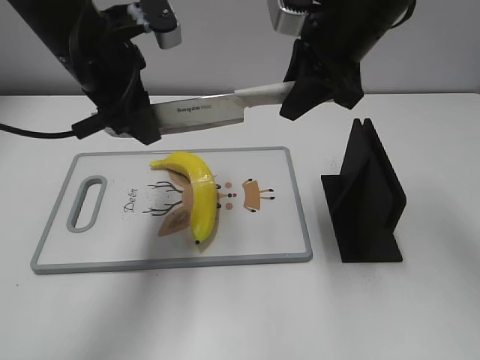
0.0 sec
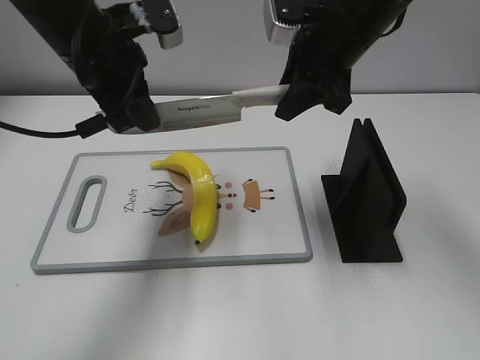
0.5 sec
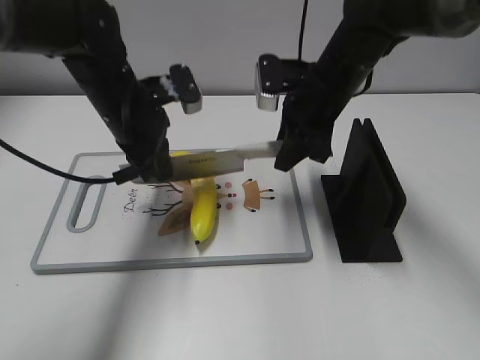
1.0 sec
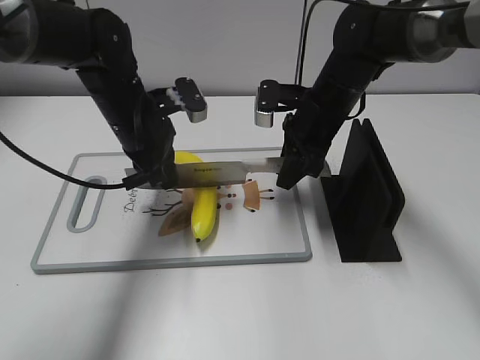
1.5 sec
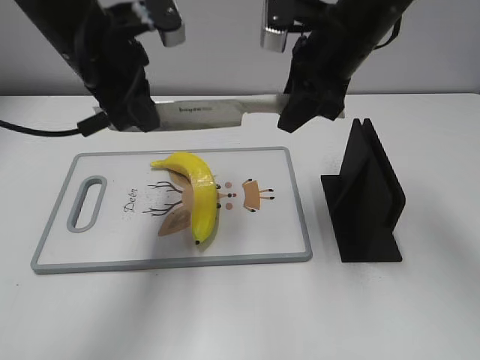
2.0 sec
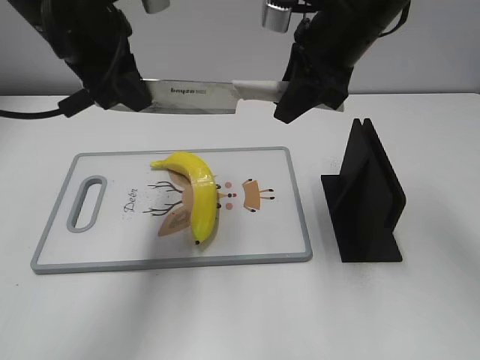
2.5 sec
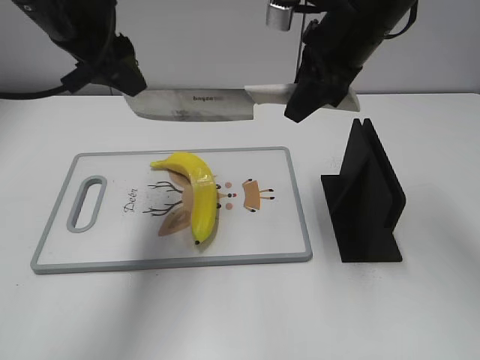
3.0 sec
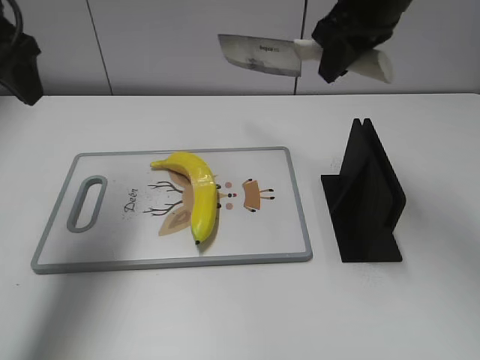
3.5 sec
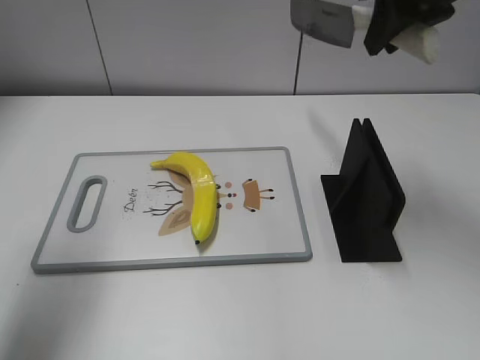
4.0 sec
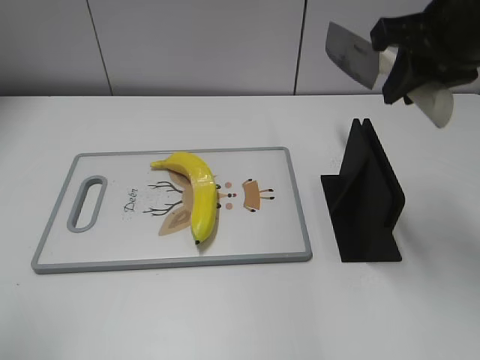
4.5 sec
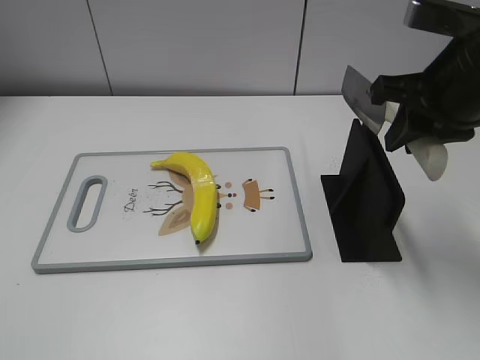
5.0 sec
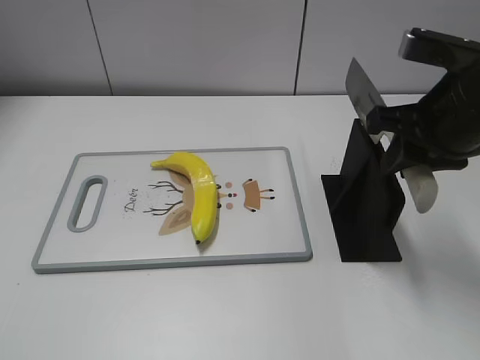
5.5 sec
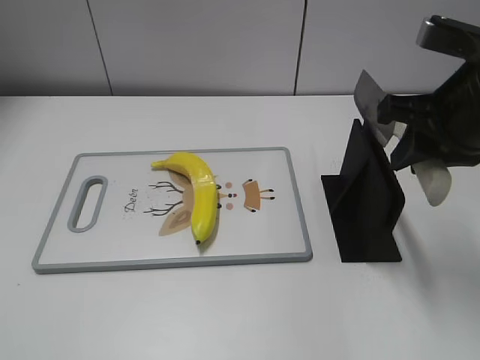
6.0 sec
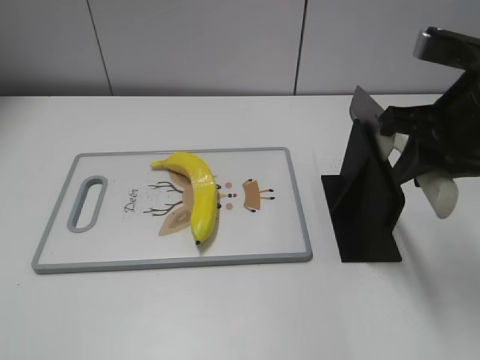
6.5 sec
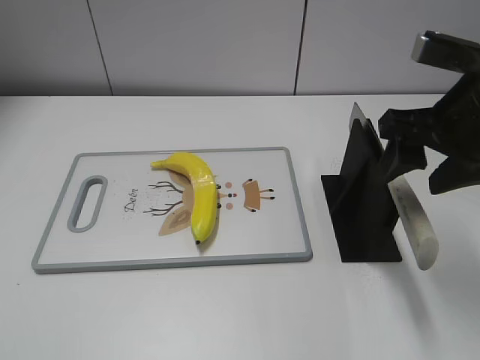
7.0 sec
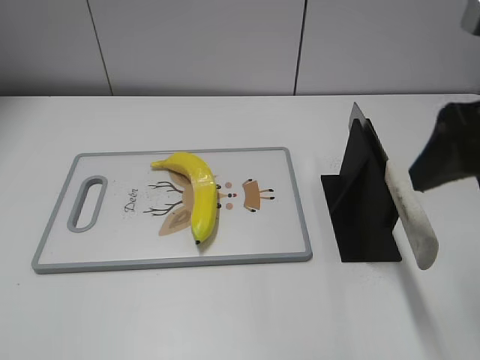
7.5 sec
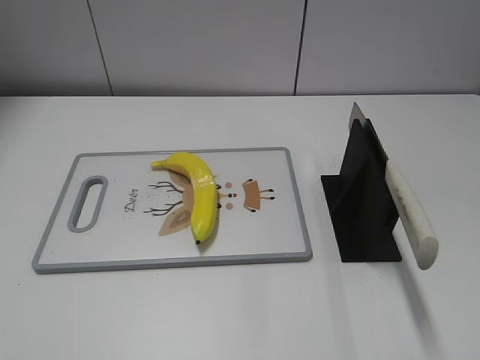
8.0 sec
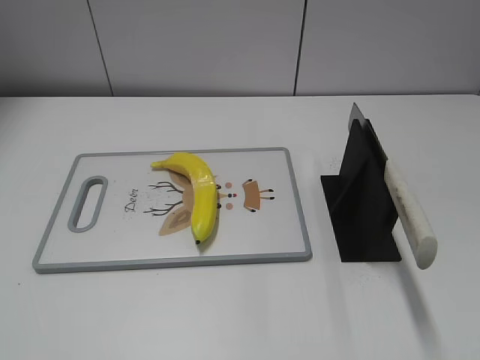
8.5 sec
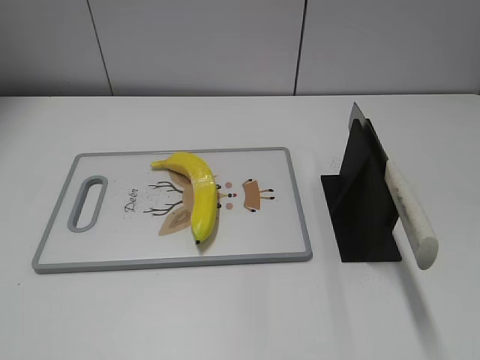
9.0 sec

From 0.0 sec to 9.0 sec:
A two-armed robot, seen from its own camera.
Task of the whole recording: cut plastic banana.
Step, from 0.0 sec to 2.5 sec: Lift the knife with your right hand.
Step, from 3.0 sec to 4.0 sec: Cut the banana with your right hand.
Step, from 4.5 sec to 5.0 sec: Lift the knife with your right hand.
From 0.0 sec to 2.0 sec: The left gripper moves roughly 10 cm downward and comes back, and closes. Meanwhile the right gripper goes downward and returns, roughly 15 cm each way.
From 2.0 sec to 4.5 sec: The right gripper travels to the right, backward and upward by about 15 cm. Meanwhile the left gripper shifts some 25 cm backward and to the left, and opens.
From 4.5 sec to 7.0 sec: The right gripper is displaced downward and backward by about 10 cm, and opens up.
From 7.0 sec to 9.0 sec: The right gripper shifts some 25 cm backward.
